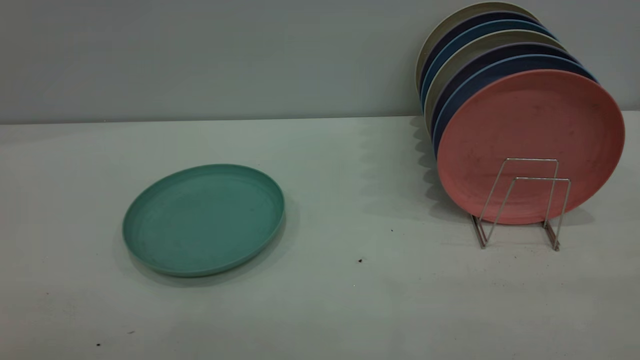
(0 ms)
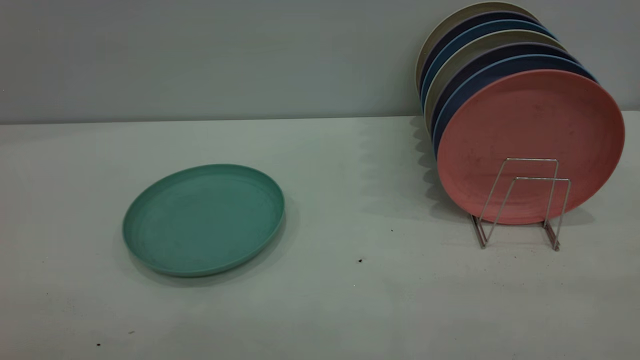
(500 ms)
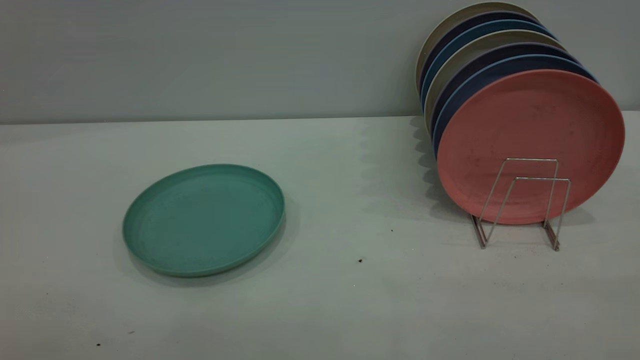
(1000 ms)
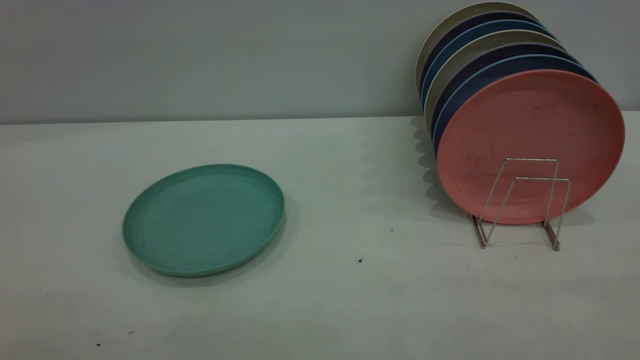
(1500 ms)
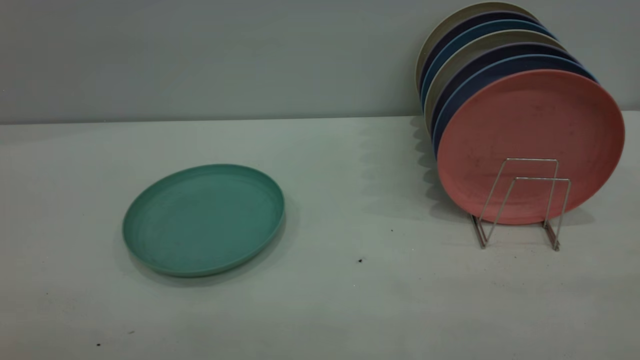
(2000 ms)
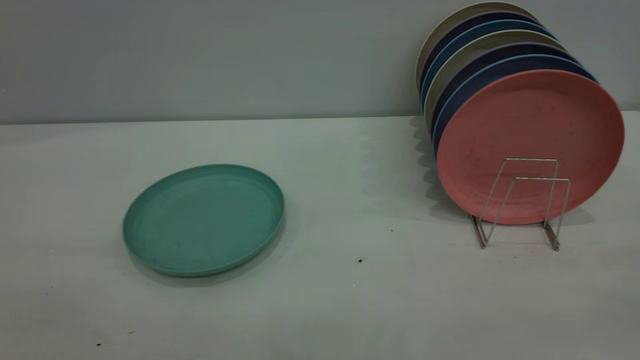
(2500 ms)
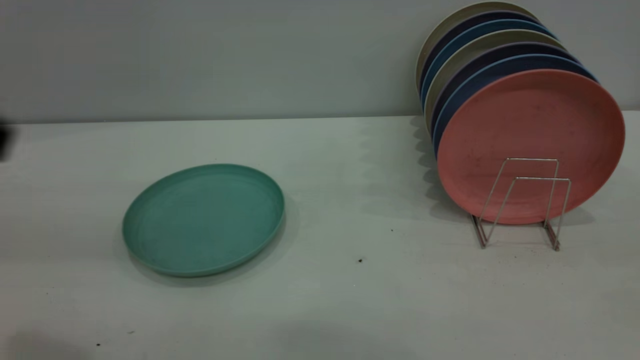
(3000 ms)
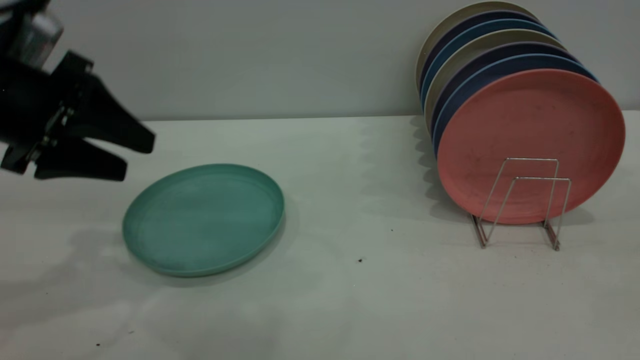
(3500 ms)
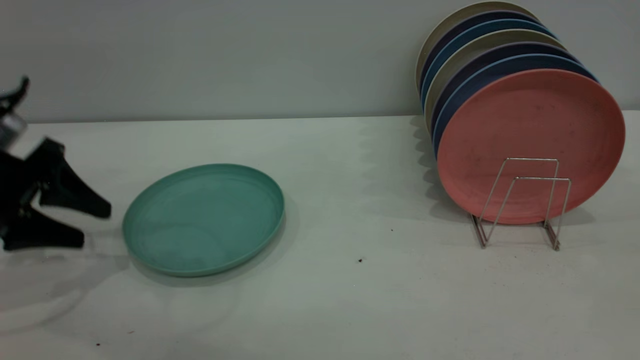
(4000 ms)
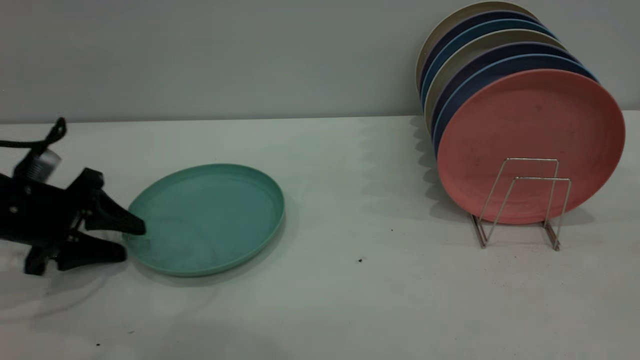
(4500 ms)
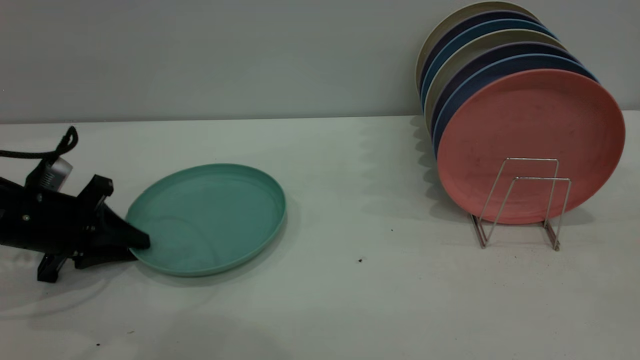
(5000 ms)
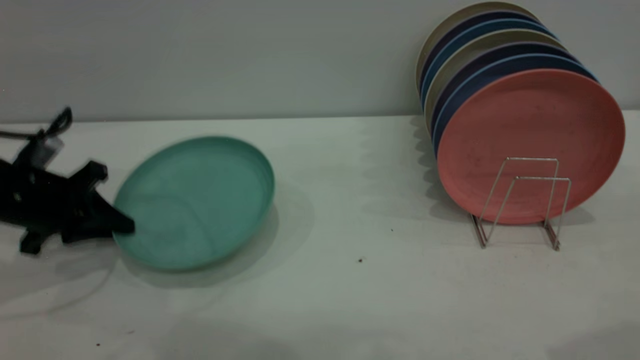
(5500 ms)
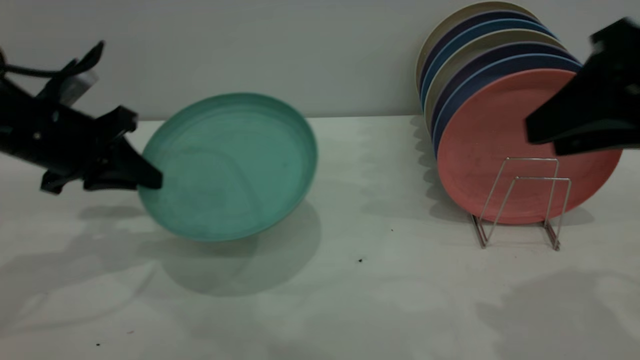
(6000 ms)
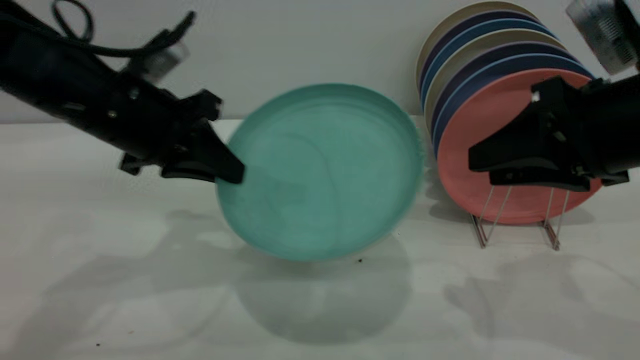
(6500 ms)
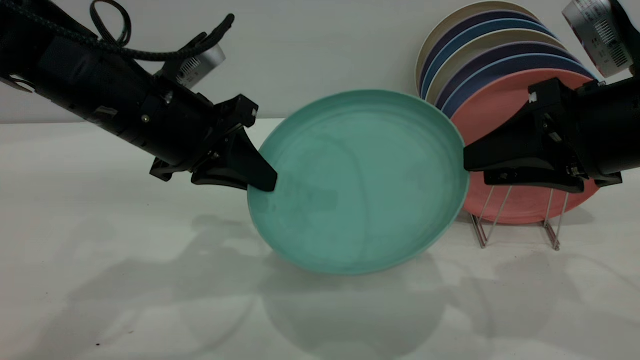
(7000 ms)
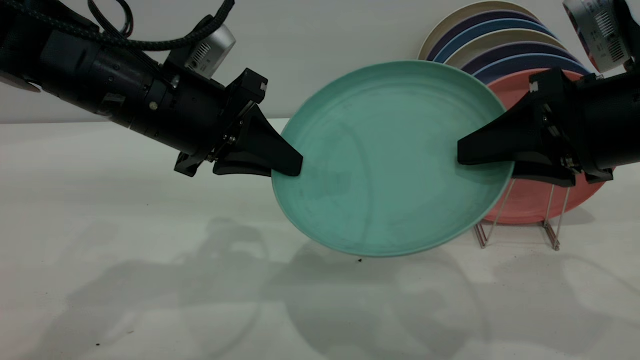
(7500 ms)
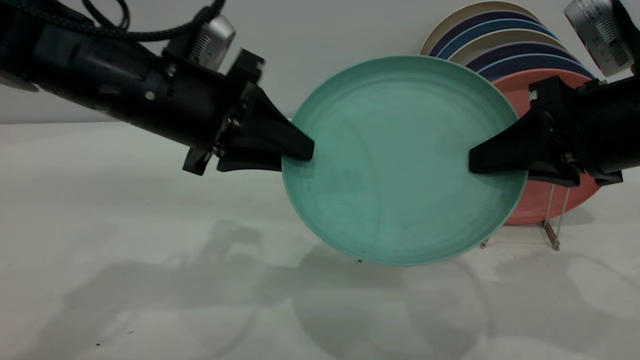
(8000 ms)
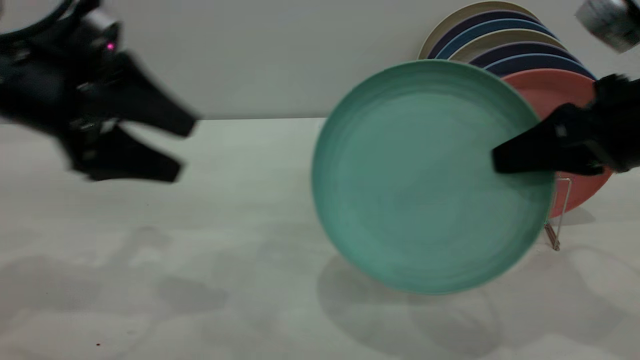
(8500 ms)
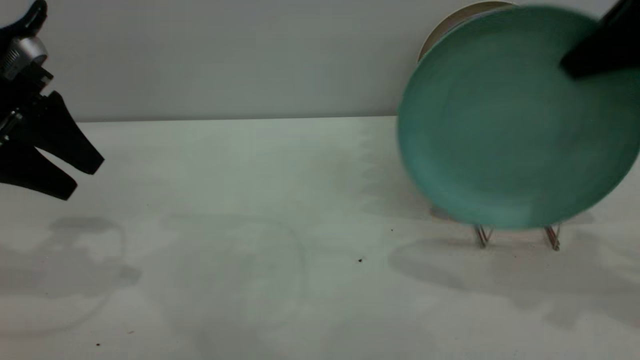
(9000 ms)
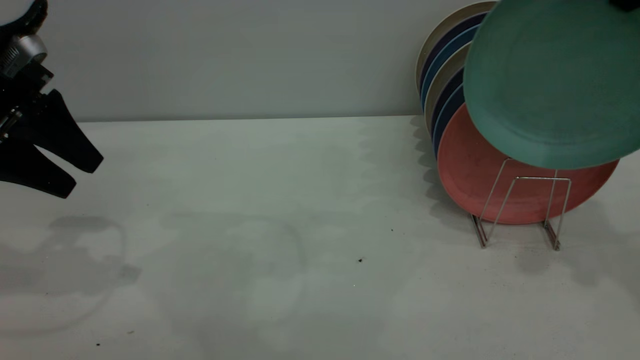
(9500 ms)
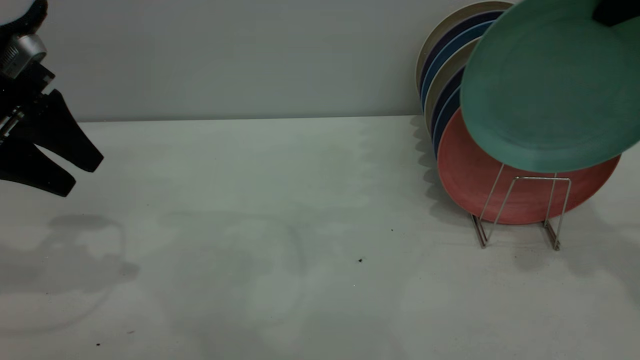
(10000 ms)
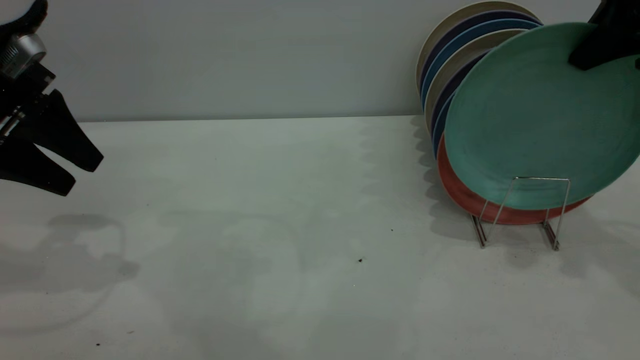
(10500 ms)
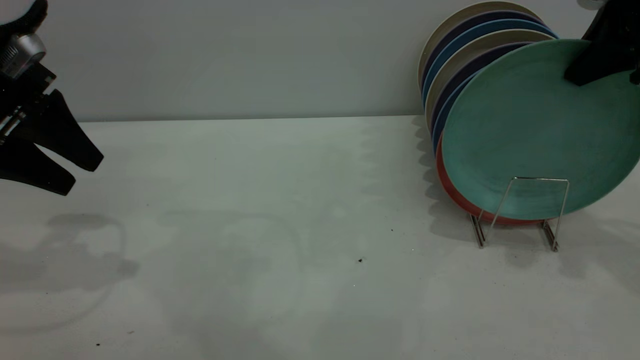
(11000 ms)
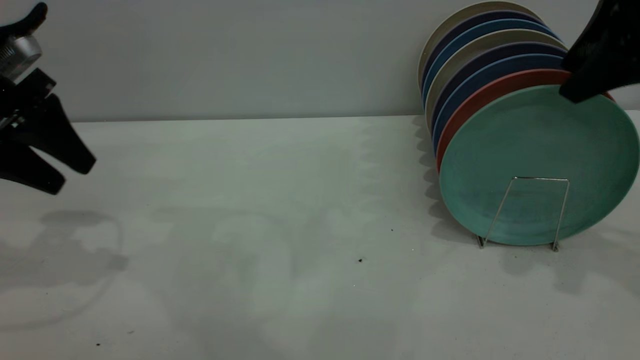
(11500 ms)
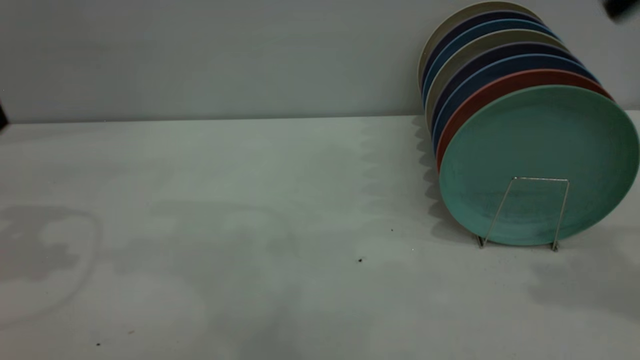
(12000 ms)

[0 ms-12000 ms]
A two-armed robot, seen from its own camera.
Task of the whole recording: the left gripper grasp the green plate, the left gripper pass the green plate to the right gripper, and the right gripper place the green plate on the plate rack.
Step, 0 ms to 5500 ms: Pick up the plate with the left gripper.
Step, 6000 ms to 8500 ms: Pass the plate from the left gripper to the right gripper.
Step, 9000 ms to 11500 ms: Place the plate on the shelf.
0 ms to 2000 ms: Both grippers stay put.
2000 ms to 4000 ms: The left gripper shifts roughly 40 cm forward and downward.
4000 ms to 6000 ms: The right gripper goes approximately 15 cm forward and downward; the left gripper heads to the right, covering some 5 cm, and closes.
6000 ms to 8000 ms: The right gripper moves downward, about 5 cm, and closes. The left gripper travels to the right by about 15 cm, and opens.
8000 ms to 10000 ms: The right gripper shifts about 15 cm upward, forward and to the right, while the left gripper travels to the left by some 20 cm, and opens its fingers.
10000 ms to 12000 ms: The right gripper heads backward, covering roughly 5 cm, and opens; the left gripper moves upward, roughly 10 cm.
